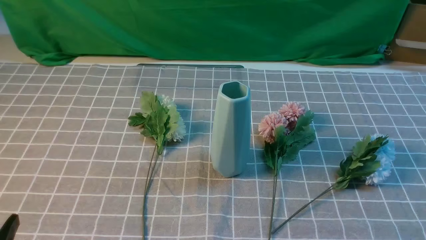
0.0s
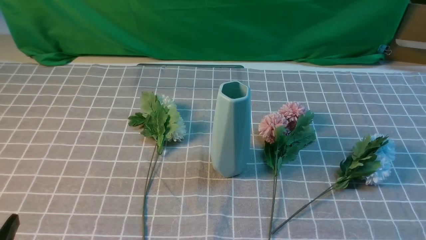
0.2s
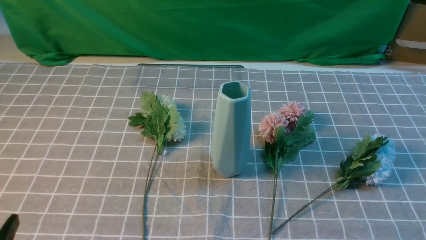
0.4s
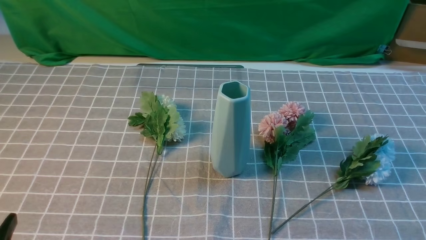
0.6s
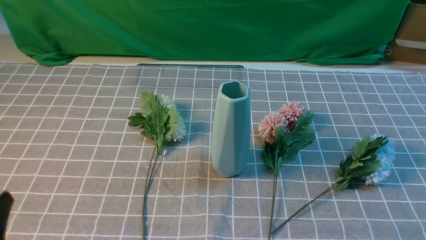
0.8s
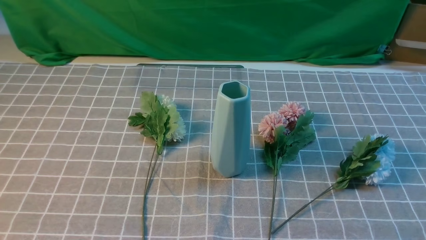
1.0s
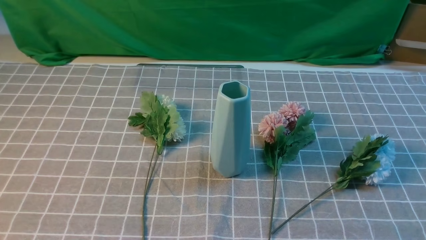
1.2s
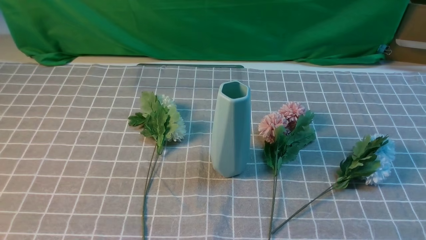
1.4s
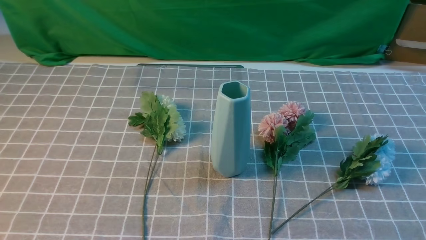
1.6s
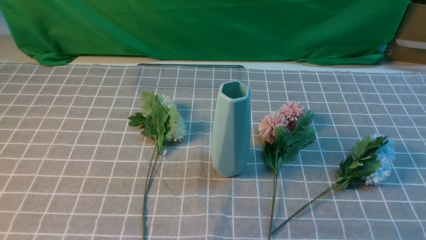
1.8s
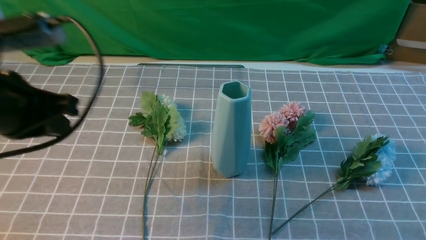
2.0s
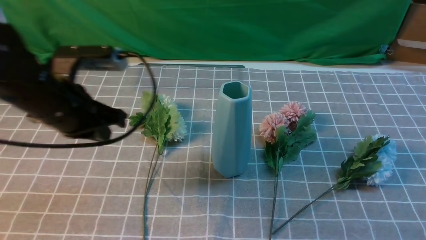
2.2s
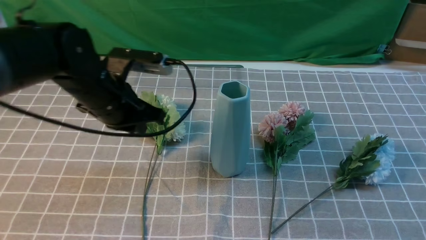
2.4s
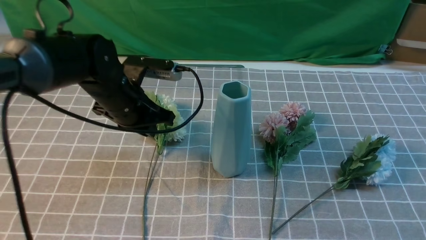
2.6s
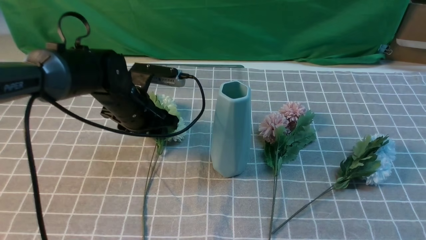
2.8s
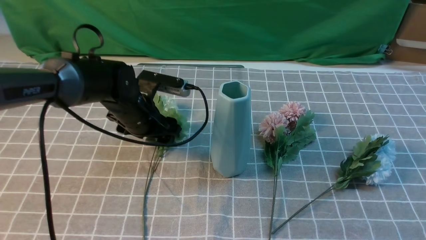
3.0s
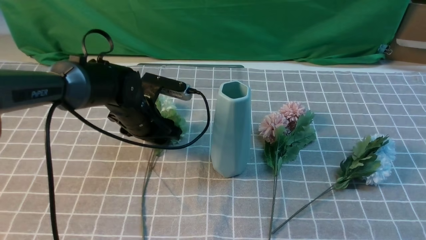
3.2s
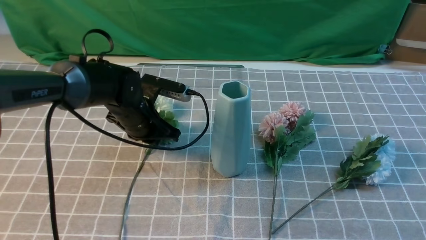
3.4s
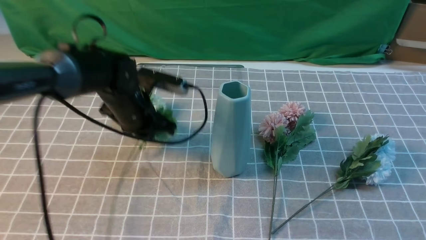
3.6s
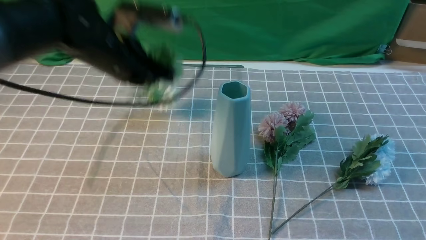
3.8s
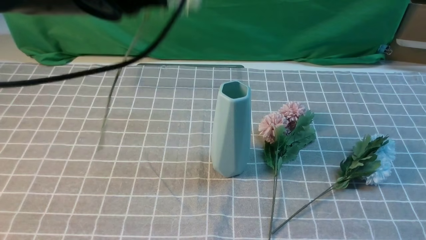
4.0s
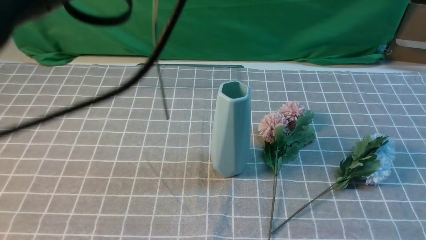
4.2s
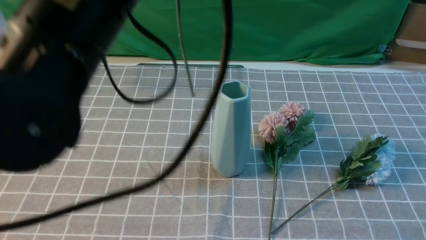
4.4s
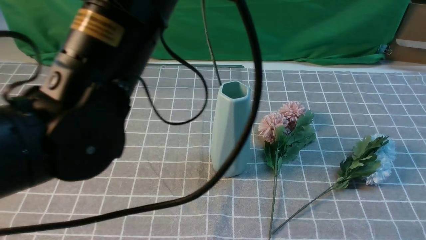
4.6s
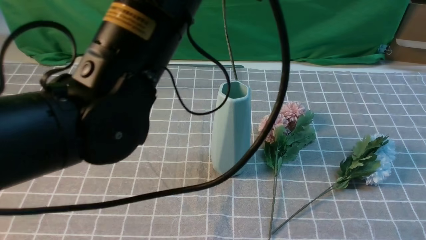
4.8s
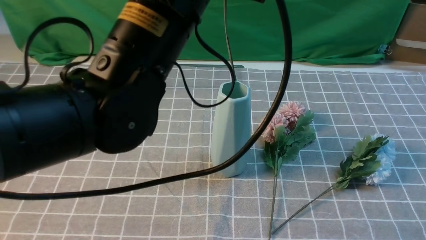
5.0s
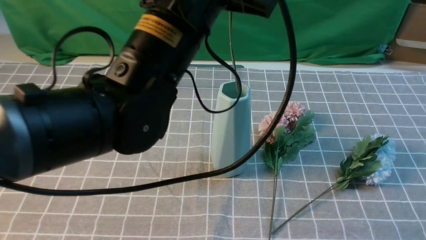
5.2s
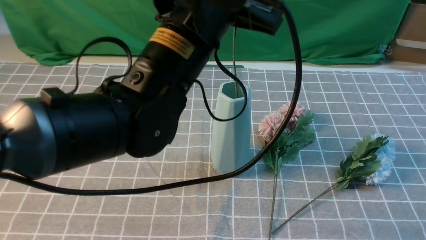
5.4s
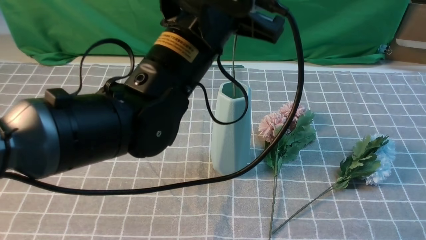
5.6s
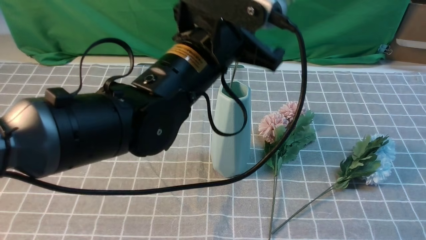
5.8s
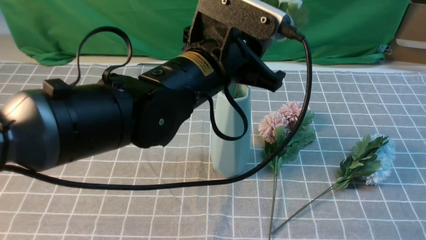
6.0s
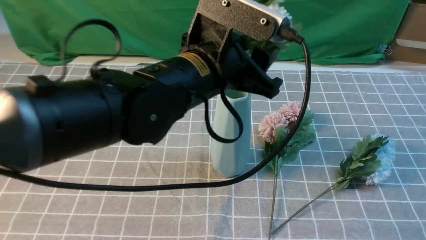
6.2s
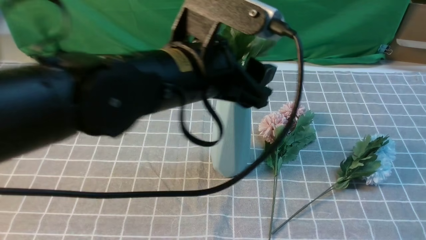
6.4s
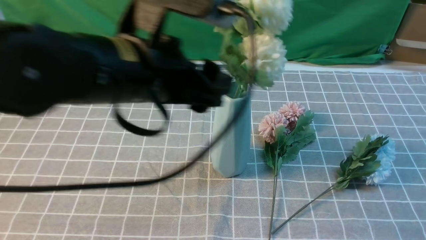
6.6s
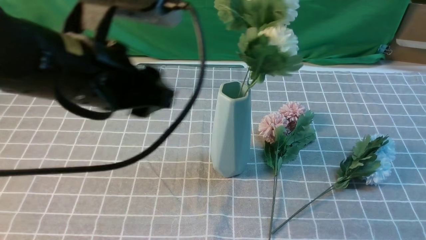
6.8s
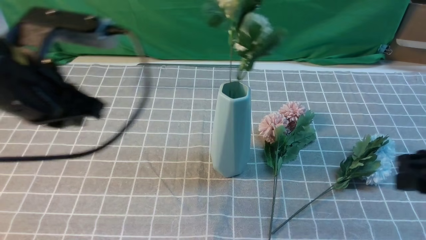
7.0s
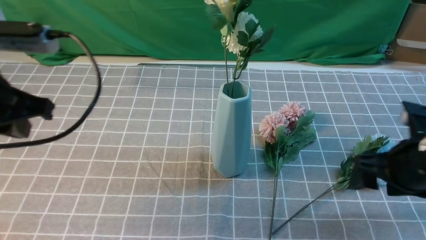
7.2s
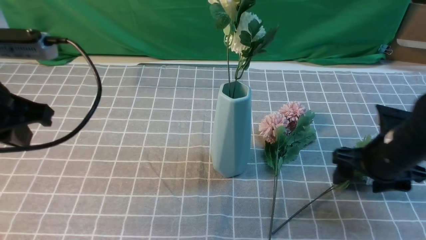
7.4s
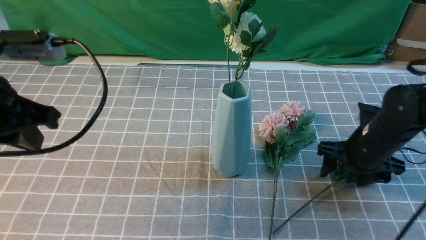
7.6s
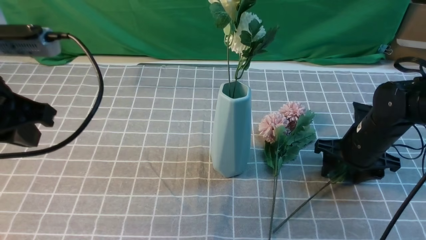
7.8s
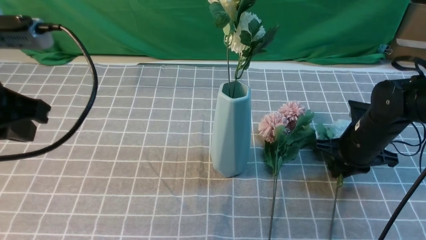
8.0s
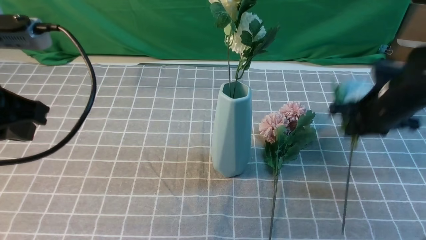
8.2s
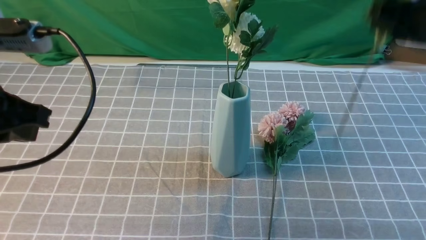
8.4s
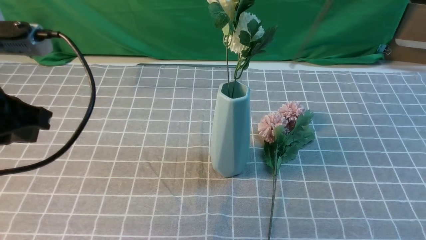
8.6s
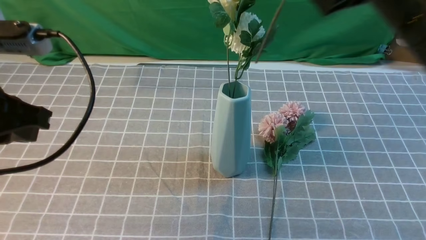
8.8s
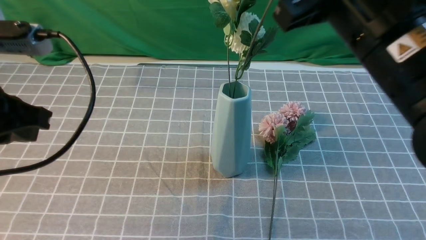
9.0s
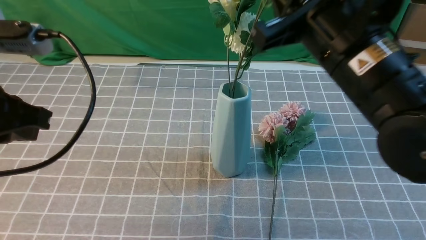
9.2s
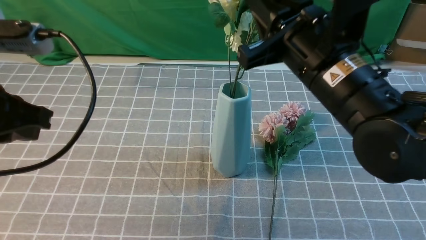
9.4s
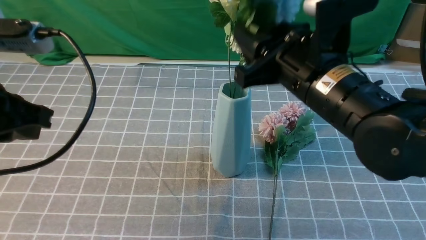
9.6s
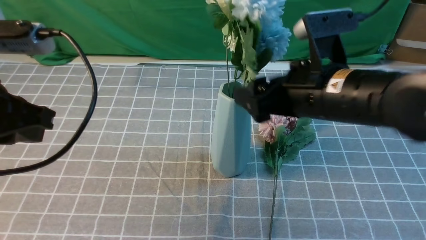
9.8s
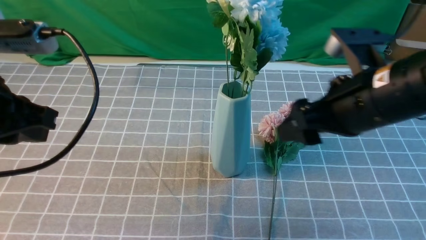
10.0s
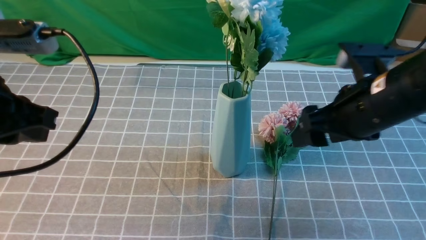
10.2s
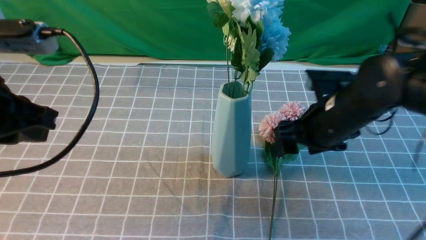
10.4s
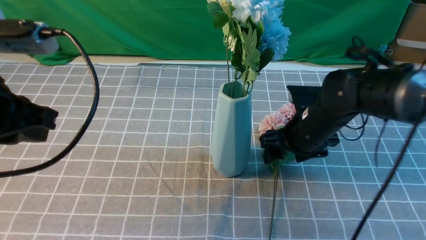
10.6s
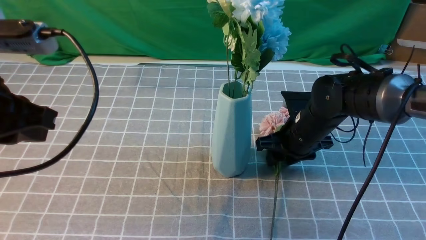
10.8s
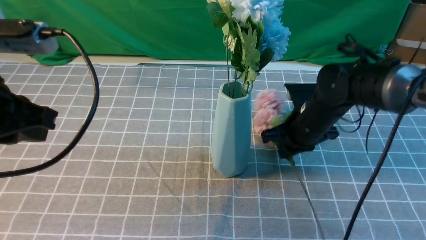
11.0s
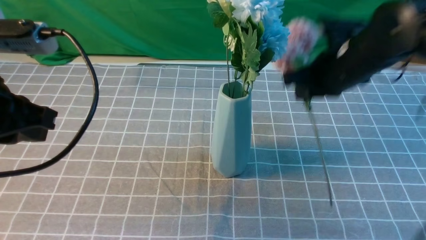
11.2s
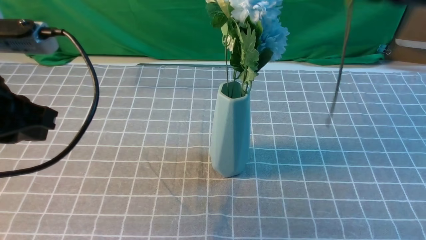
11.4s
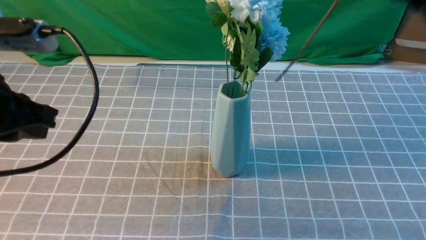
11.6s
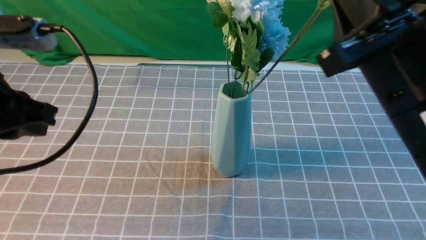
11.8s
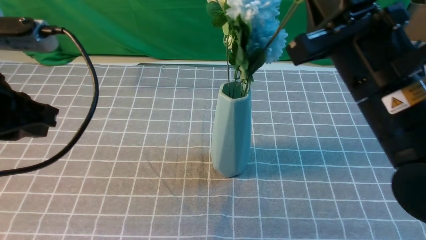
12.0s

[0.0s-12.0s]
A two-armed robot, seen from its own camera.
Task of the whole recording: insert the flowers into the vase on the table with the grey tablecloth.
Step, 0.0s to 3.4s: use the left arm to grab a bunch of fresh flowers.
Step, 3.6s to 6.4s: use the left arm to insert the flowers into the vase.
Step, 6.8s to 7.8s: use the right arm to grab a bunch of fresh flowers.
Step, 8.2s to 9.8s: use the right arm to insert the flowers into the vase.
Step, 10.0s to 10.8s: use the right arm to grab a bunch of fresh flowers.
1.6s to 3.0s: The left gripper is displaced forward and downward by approximately 35 cm, and opens, while the right gripper goes roughly 15 cm upward and forward.
3.0s to 4.4s: The left gripper is displaced upward and backward by roughly 30 cm, and closes up.
4.4s to 6.0s: The left gripper goes about 15 cm downward, to the right and forward, and opens.
6.0s to 7.6s: The left gripper is displaced to the left by some 20 cm, and closes up, while the right gripper shifts approximately 25 cm forward and downward, and opens its fingers.
7.6s to 9.0s: The right gripper moves upward, to the left and backward, about 25 cm, and closes.
9.0s to 10.4s: The right gripper goes some 20 cm downward and forward, and opens up.
10.4s to 12.0s: The right gripper moves up and down over approximately 25 cm, changing direction 2 times, and closes up.

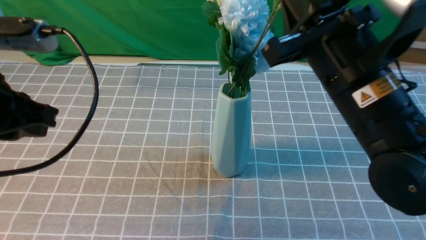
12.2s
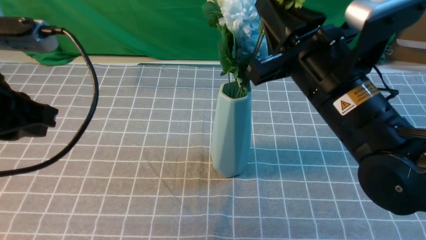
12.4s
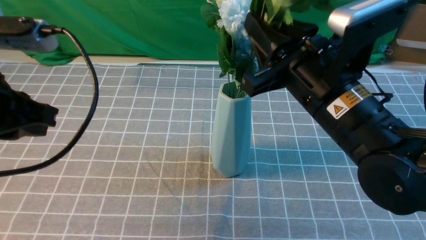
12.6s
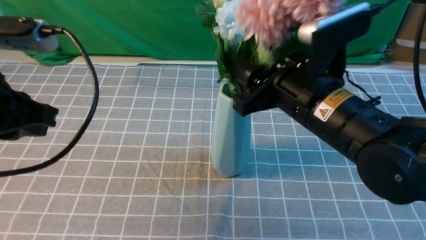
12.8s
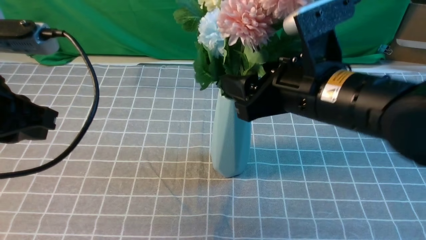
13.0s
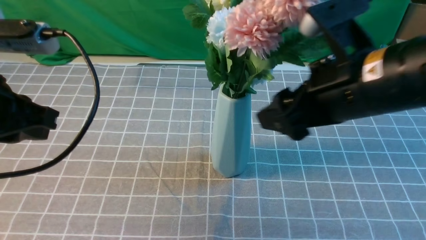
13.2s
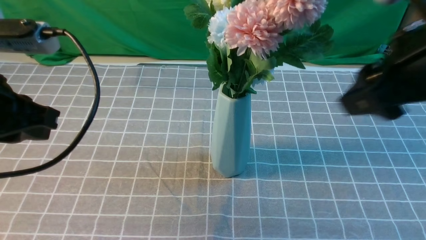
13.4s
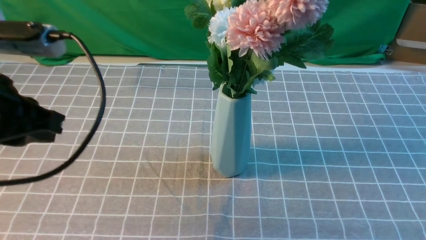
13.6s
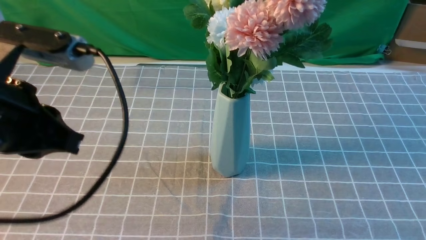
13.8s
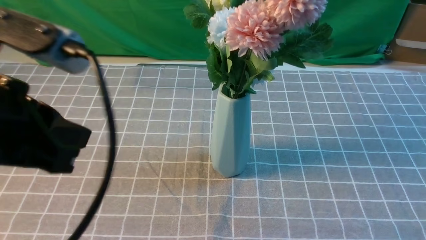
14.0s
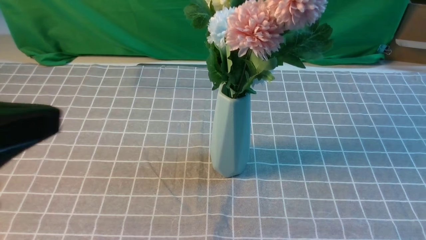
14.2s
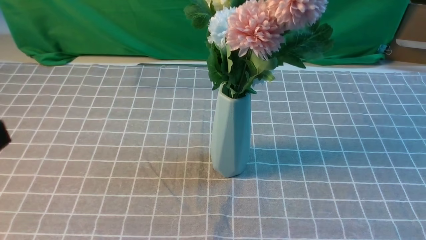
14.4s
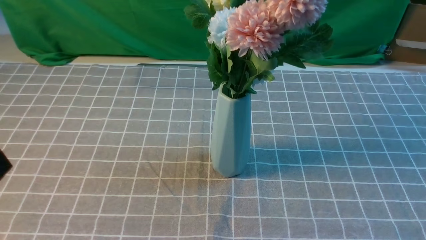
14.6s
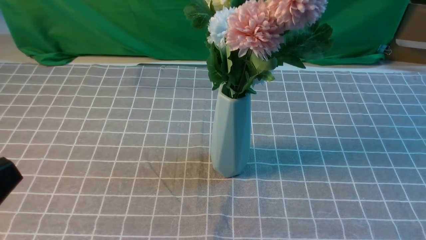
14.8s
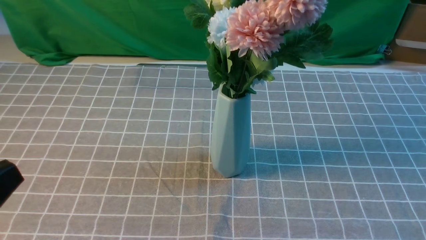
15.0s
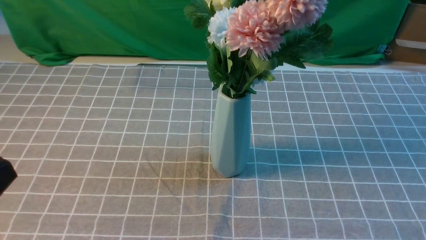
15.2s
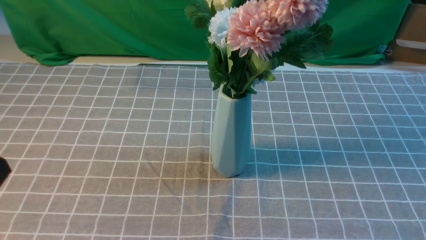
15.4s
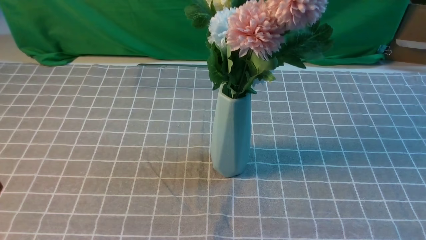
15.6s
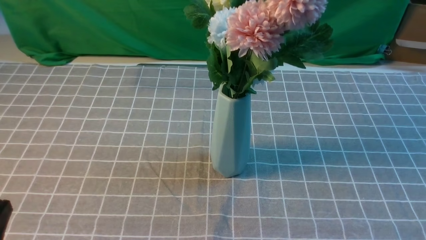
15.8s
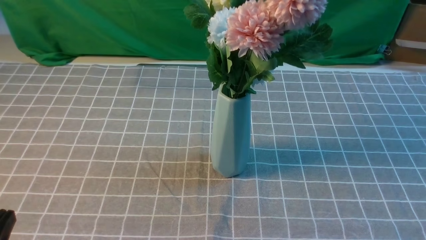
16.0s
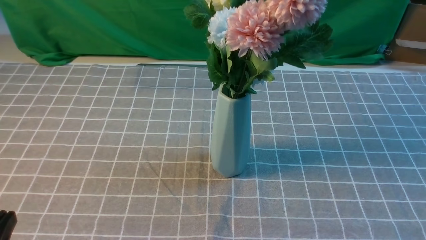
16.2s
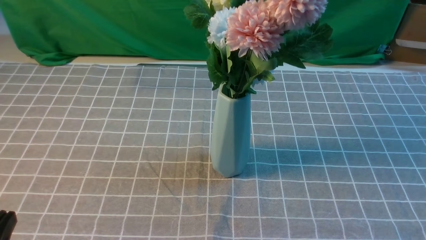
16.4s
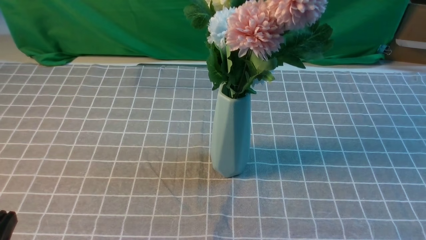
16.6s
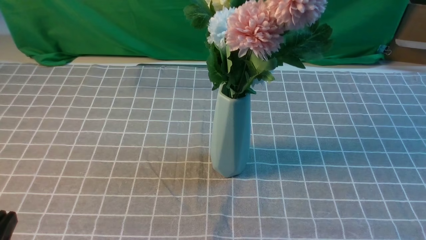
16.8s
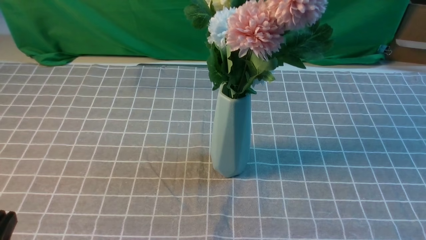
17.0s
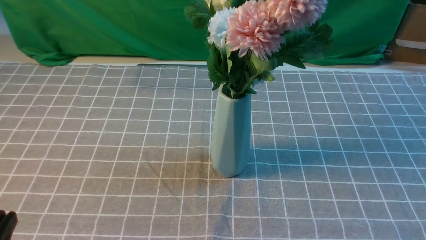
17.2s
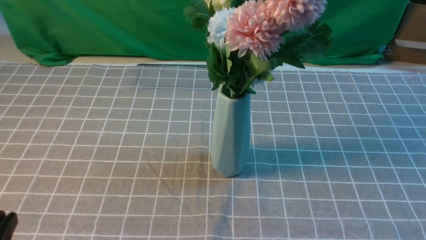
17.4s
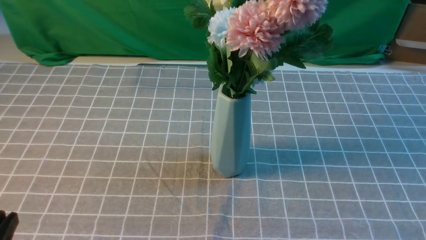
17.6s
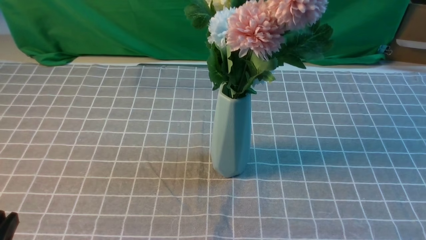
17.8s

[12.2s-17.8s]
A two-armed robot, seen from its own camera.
Task of the whole recording: insert the flowers into the vase on the table with the grey tablecloth.
12.2s to 13.6s: The right gripper moves upward, to the right and backward, about 20 cm, and opens, then closes once more.
13.6s to 15.0s: The right gripper goes roughly 15 cm downward and backward. Meanwhile the left gripper is displaced backward by approximately 15 cm.
15.0s to 16.4s: The left gripper goes approximately 15 cm downward.
